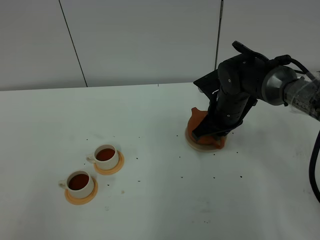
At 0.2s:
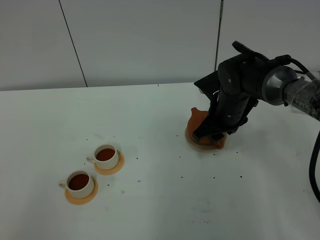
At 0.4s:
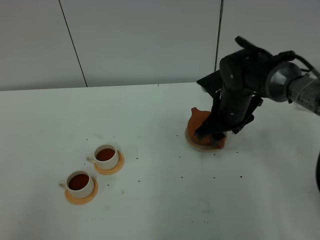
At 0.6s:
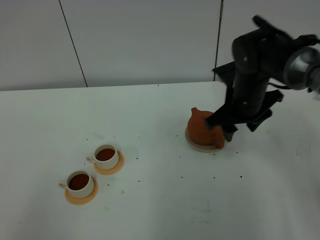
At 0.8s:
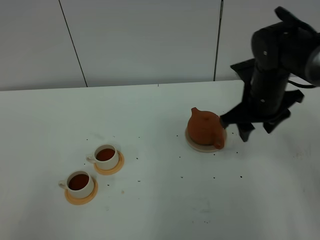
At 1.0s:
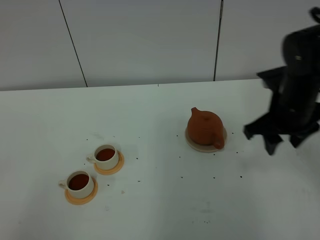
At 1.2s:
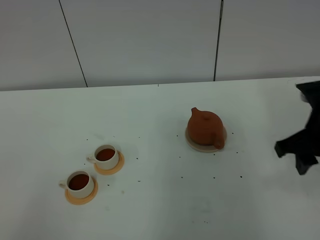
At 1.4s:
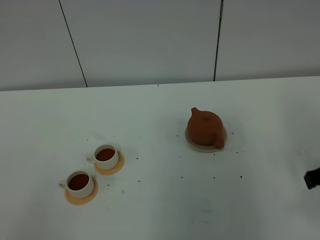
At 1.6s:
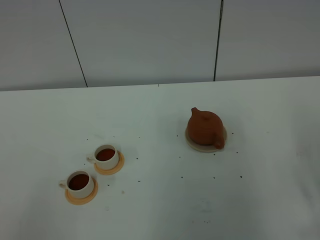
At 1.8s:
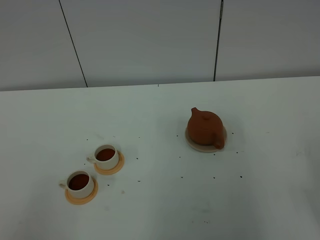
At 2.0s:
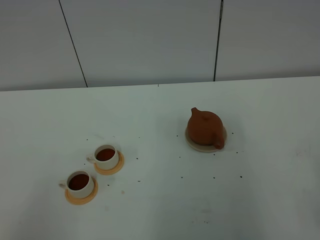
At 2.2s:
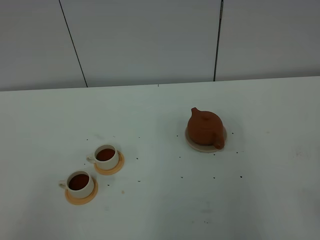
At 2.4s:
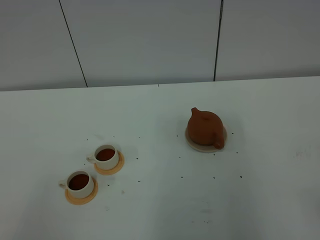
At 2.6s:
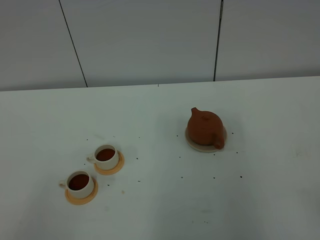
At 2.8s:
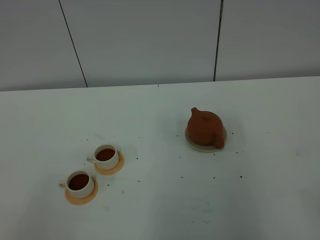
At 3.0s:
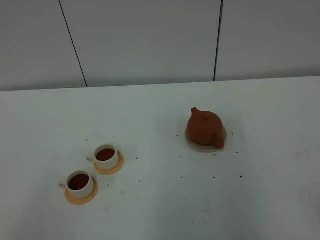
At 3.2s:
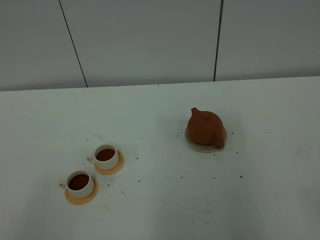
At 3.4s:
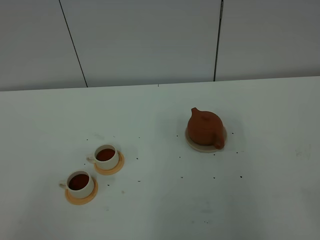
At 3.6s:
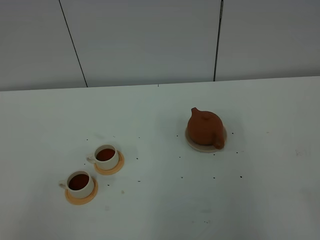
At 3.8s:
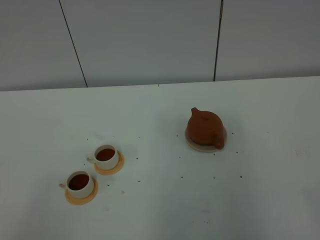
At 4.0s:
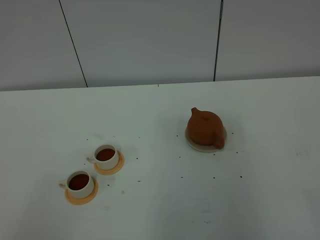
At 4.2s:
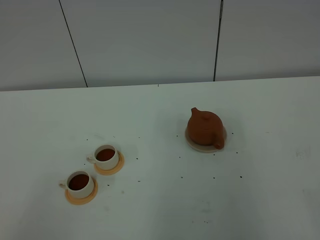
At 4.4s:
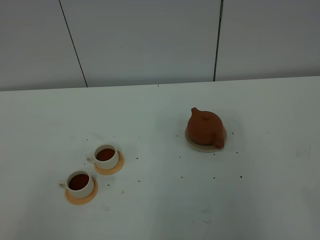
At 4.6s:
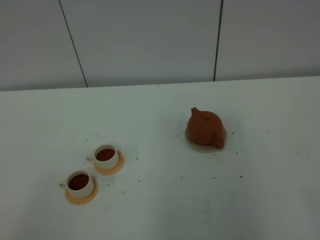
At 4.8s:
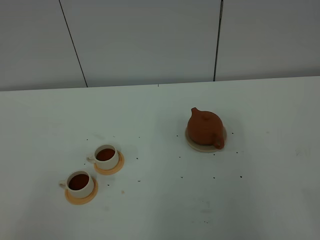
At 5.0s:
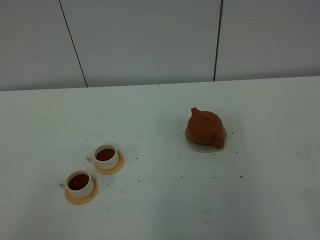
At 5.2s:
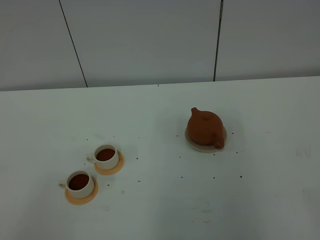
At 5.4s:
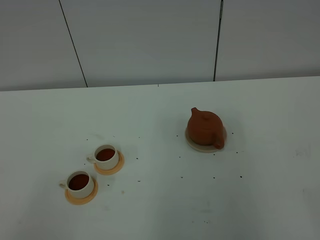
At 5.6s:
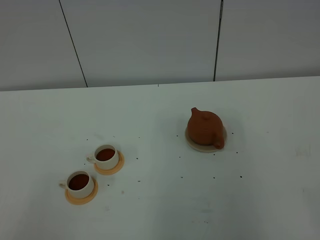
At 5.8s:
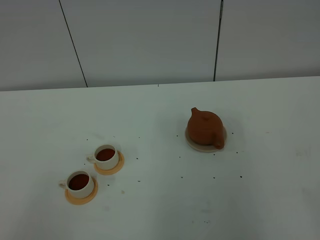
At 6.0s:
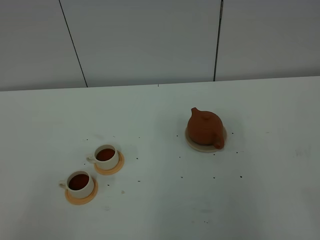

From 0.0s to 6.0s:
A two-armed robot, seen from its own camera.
Task of the whole recording: grasp the brown teapot and pour the tea into the two white teacups one by one, put the brown teapot back in its original place.
From 0.0s to 1.6s: The right gripper is displaced backward and to the right by approximately 30 cm, and opens its fingers.
From 4.4s to 6.0s: Both grippers stay put.

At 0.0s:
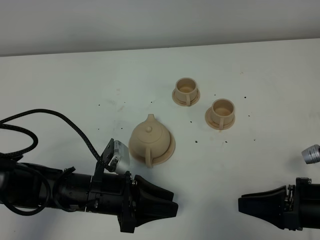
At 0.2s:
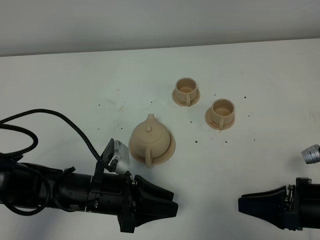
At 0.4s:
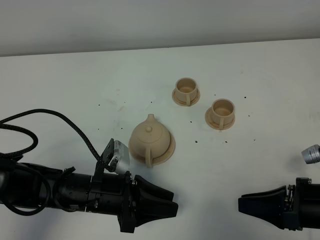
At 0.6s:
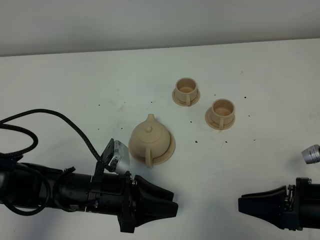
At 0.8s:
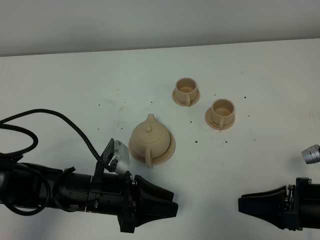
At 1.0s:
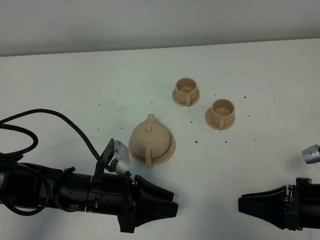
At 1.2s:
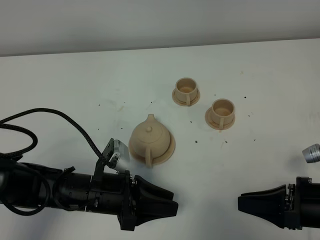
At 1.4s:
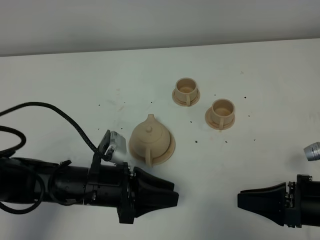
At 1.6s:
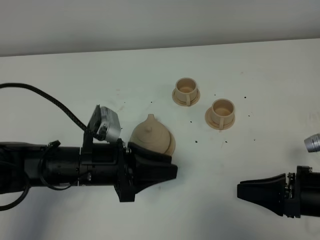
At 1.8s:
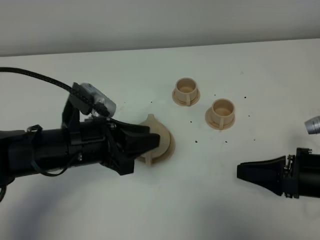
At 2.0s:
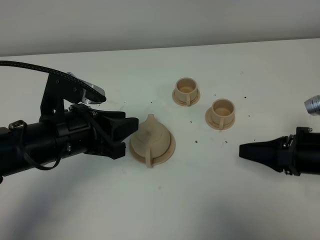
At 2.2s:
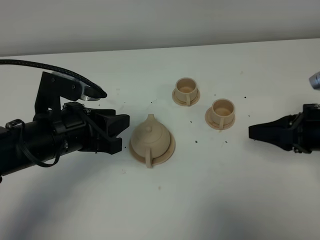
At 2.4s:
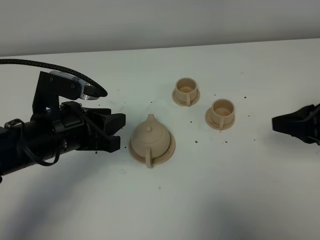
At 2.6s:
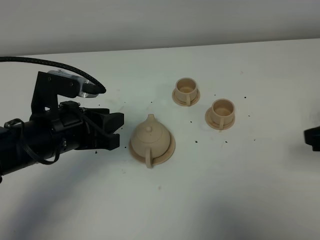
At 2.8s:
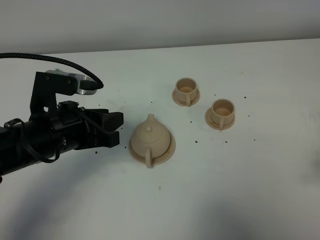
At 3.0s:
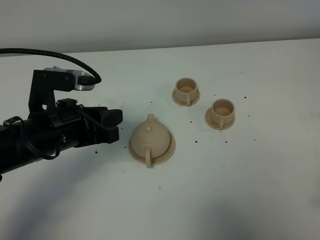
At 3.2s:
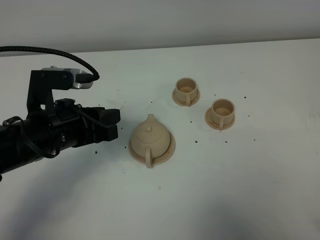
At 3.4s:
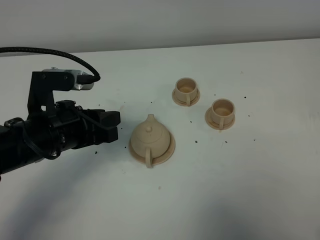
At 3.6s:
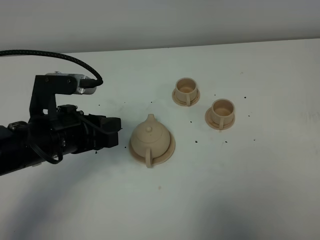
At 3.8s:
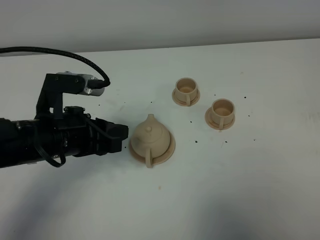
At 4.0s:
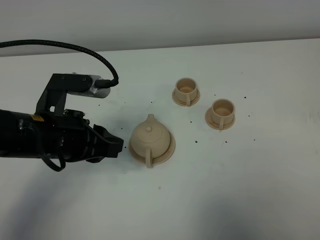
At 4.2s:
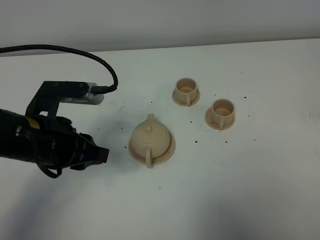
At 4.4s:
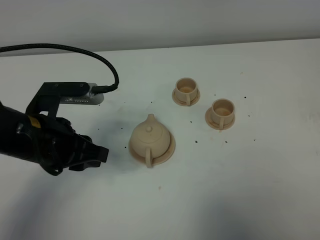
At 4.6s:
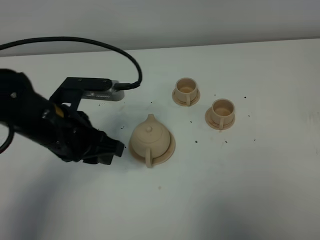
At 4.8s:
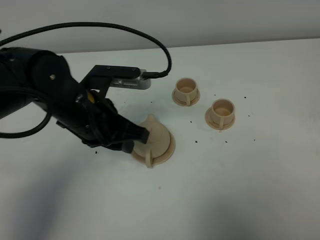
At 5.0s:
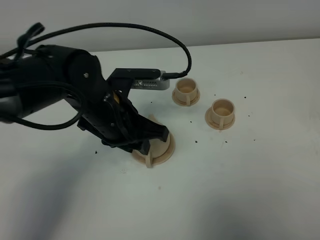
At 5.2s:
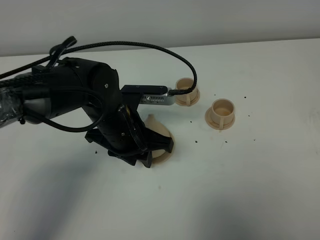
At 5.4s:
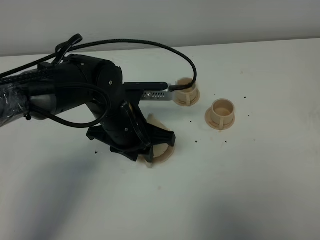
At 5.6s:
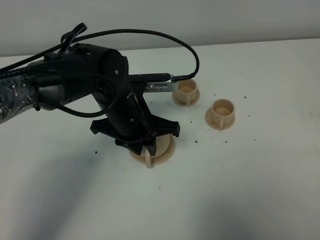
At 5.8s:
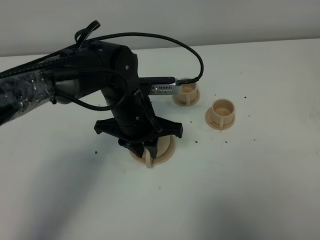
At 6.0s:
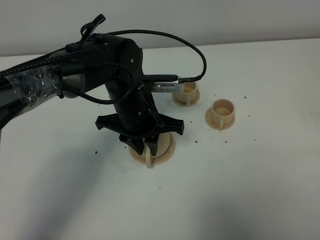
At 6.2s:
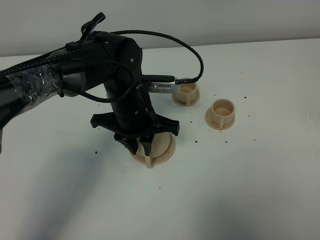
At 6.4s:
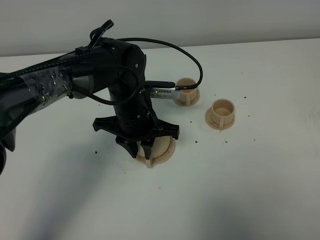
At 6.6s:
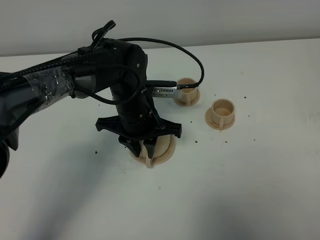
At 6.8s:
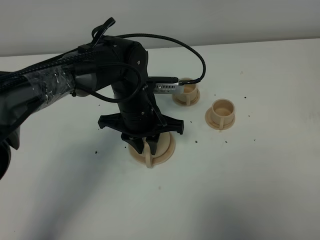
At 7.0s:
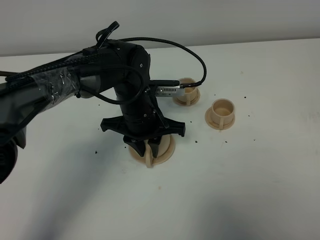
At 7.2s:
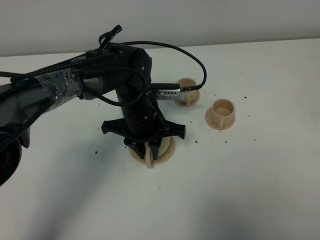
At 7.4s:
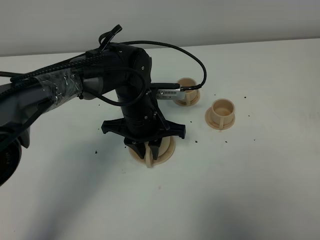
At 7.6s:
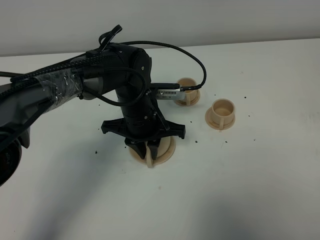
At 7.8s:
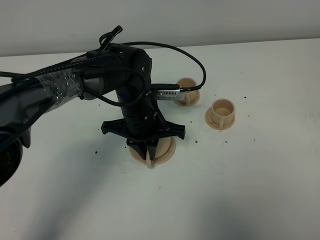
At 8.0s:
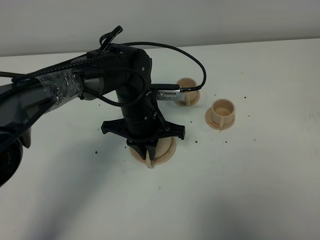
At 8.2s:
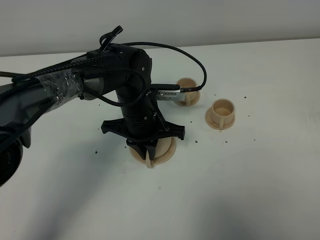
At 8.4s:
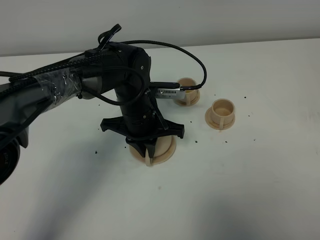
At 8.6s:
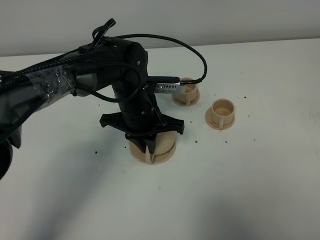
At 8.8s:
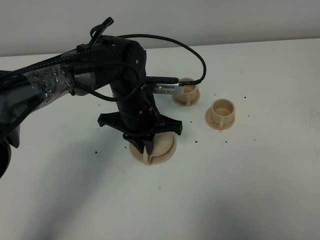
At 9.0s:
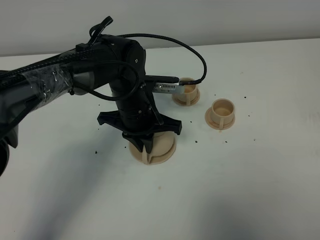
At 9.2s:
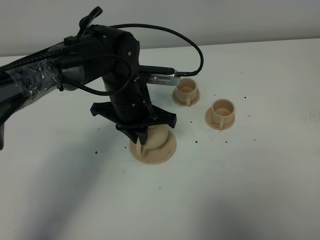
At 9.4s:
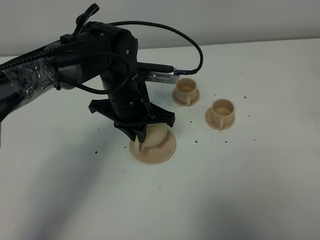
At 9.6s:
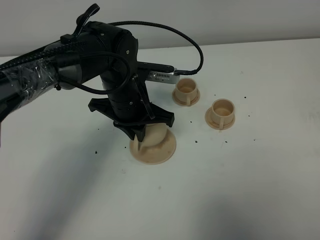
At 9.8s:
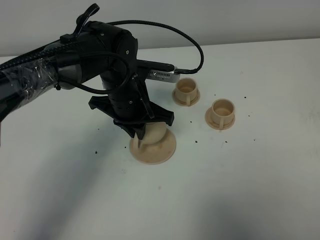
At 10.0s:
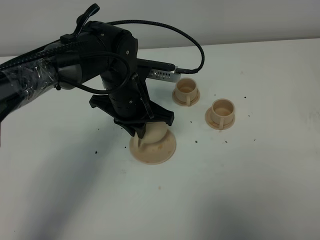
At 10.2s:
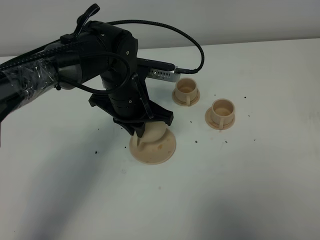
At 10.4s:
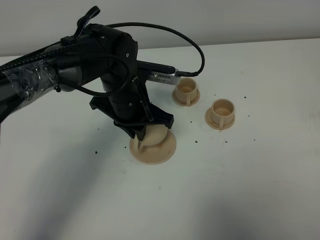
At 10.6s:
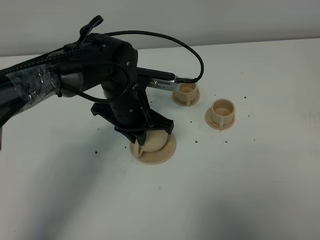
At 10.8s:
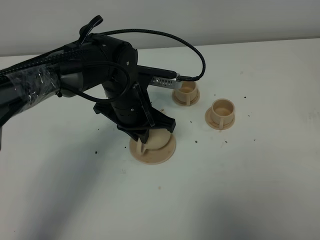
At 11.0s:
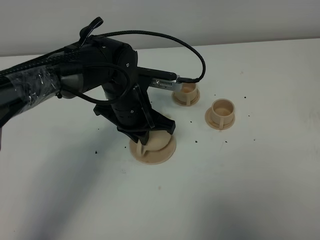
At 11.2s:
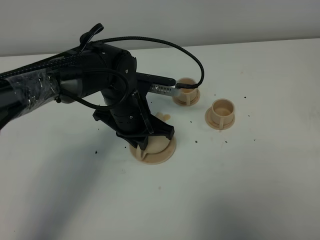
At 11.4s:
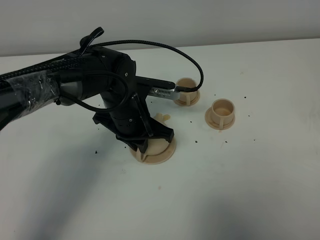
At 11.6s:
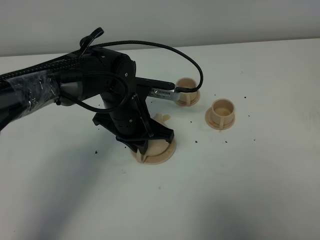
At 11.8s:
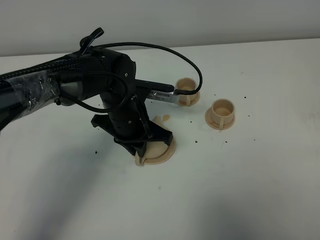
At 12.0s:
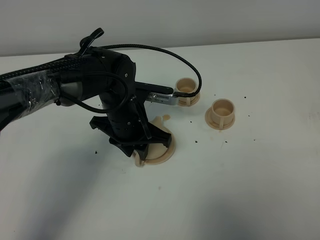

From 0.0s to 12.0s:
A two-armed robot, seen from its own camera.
Task of the whole recording: grasp the brown teapot and pour the tea into the two brown teacups one by one, put the brown teapot back in its original place.
From 0.0s to 1.6s: The left gripper heads upward, covering roughly 5 cm.
From 1.6s to 3.0s: The left gripper shifts by approximately 5 cm, while the right gripper heads upward, to the right and backward, covering about 15 cm.
From 3.0s to 4.4s: The right gripper goes roughly 10 cm backward.
From 4.4s to 6.0s: The left gripper goes about 15 cm to the right, forward and downward.
From 6.0s to 7.6s: The grippers stay close to where they were, moving slightly.
From 7.6s to 9.0s: The left gripper closes.
From 9.0s to 10.4s: There are only small adjustments of the grippers.
From 10.4s to 12.0s: The left gripper opens up.

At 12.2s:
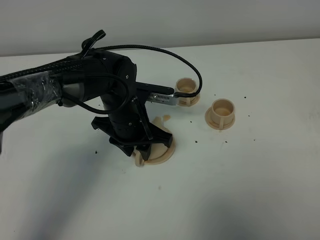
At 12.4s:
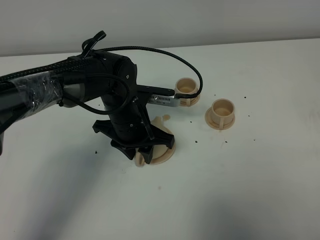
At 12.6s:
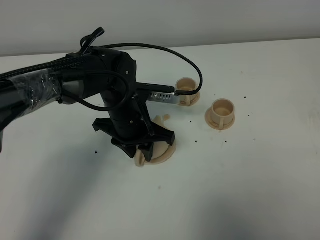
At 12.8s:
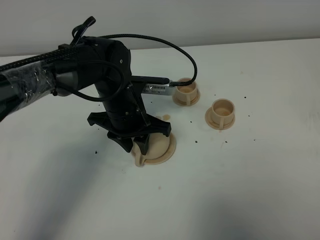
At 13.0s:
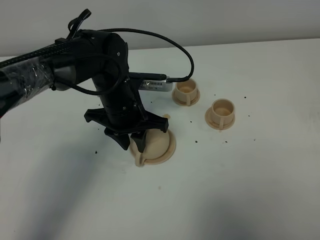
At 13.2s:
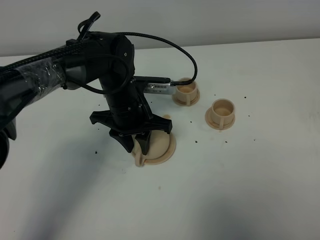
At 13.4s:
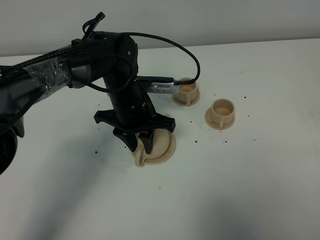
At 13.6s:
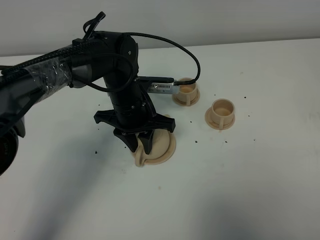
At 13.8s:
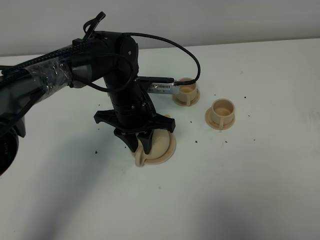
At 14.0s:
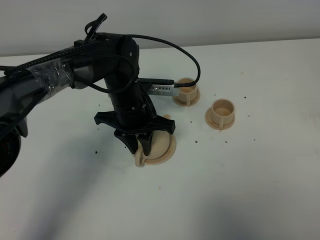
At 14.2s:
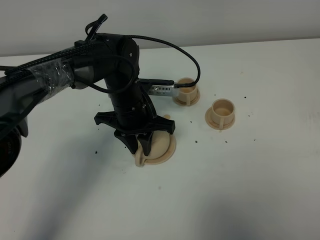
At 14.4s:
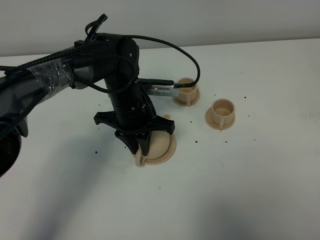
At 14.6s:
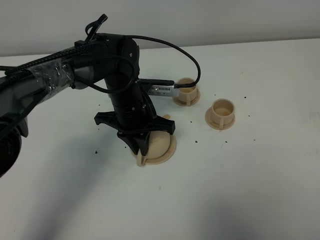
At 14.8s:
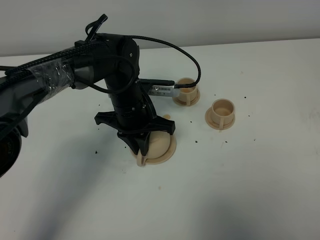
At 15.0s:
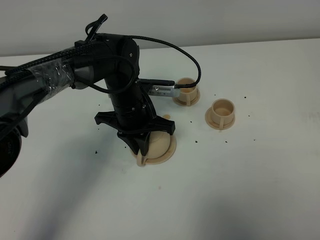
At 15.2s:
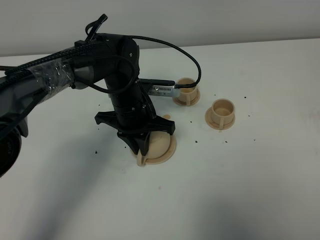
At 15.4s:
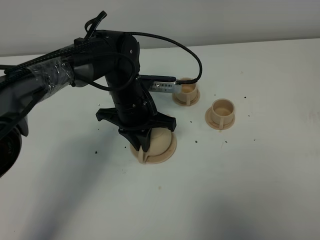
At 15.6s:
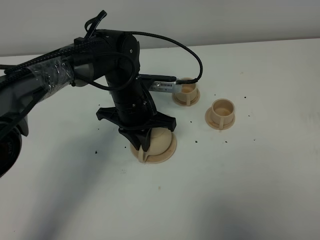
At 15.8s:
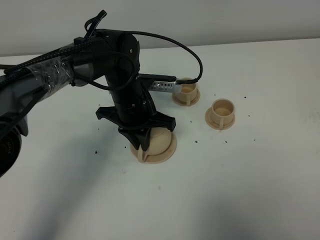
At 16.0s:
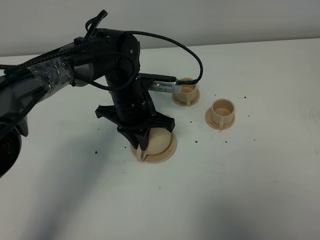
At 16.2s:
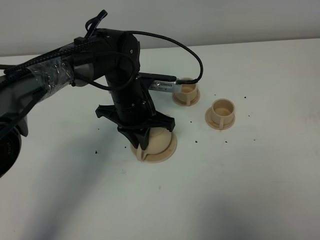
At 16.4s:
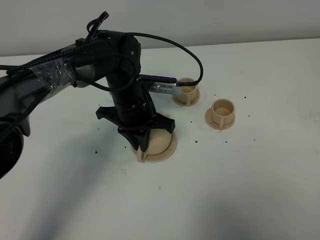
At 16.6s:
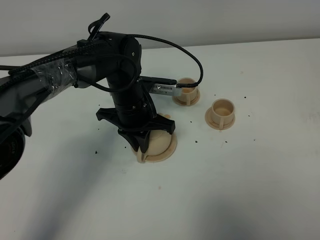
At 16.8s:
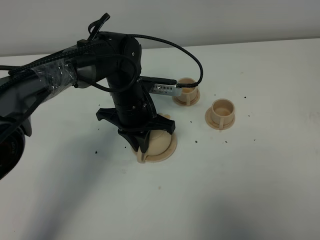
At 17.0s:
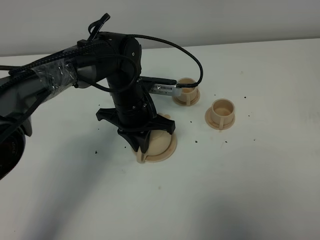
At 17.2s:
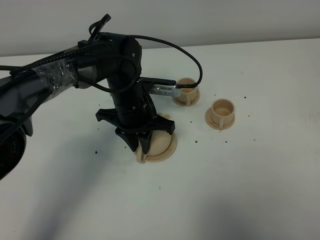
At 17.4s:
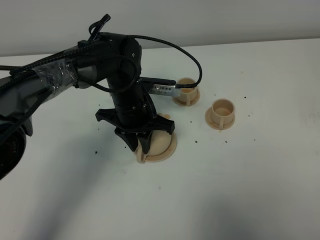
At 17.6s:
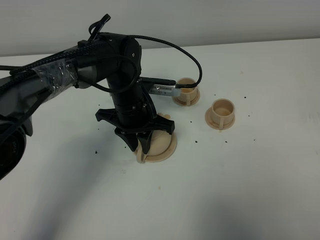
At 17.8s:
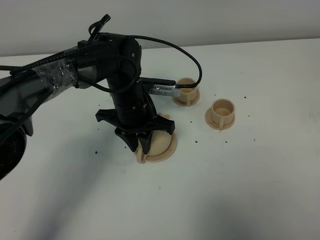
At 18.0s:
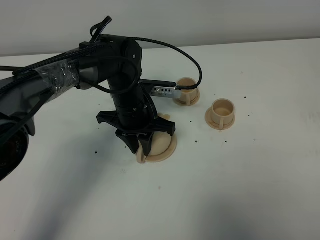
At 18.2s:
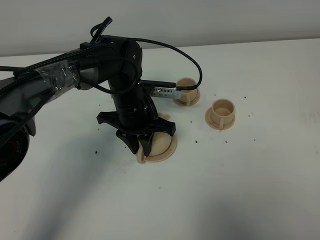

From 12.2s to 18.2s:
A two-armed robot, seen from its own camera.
Task of the whole recording: grasp the brown teapot and pour the tea into the two brown teacups one by one, put the brown teapot back in its original place.
Step, from 12.2s to 15.6s: Pick up the teapot with the left gripper.
From 12.2s to 13.8s: There are only small adjustments of the grippers.
From 13.8s to 15.2s: The left gripper closes its fingers.
From 15.2s to 16.6s: Neither gripper changes place.
From 16.6s to 18.2s: The left gripper opens its fingers.
